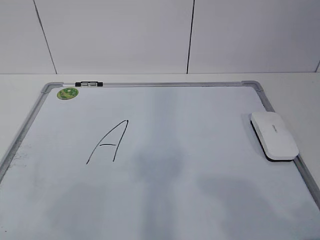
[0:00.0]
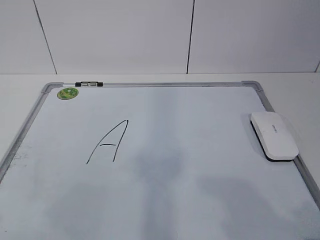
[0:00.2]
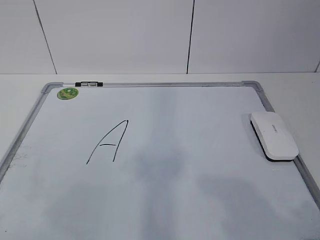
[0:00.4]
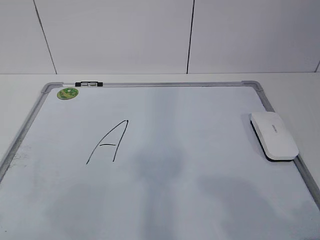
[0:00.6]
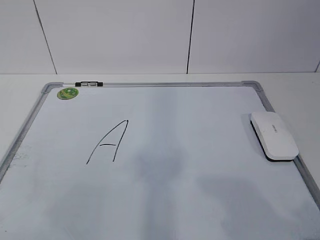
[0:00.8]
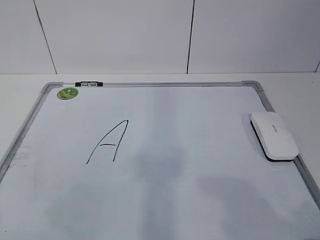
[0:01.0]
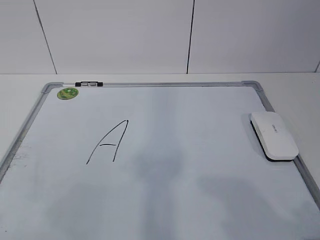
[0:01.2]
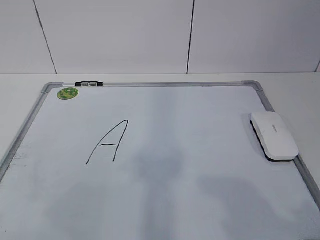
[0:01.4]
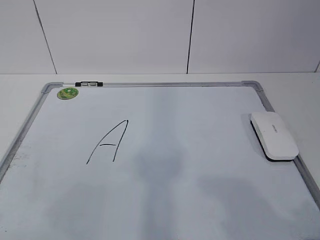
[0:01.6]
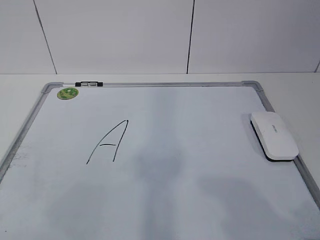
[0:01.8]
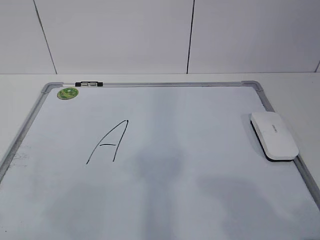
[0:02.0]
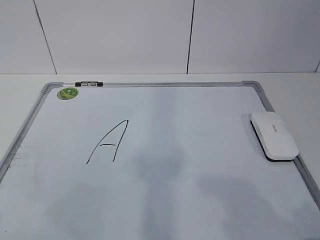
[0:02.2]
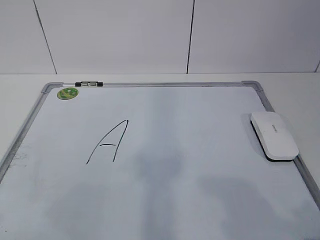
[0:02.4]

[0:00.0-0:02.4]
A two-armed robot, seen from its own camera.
Task of the whole recording: pick up the eraser on the blackboard and erase the letter "a".
0:00.0 to 0:02.4: Both grippers stay put.

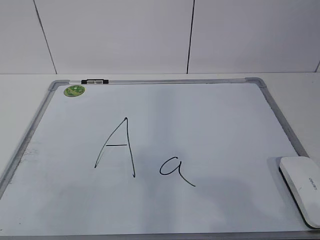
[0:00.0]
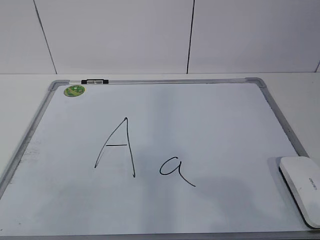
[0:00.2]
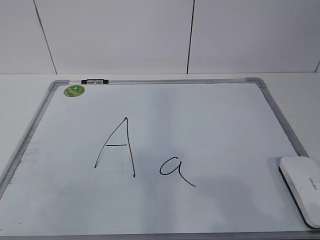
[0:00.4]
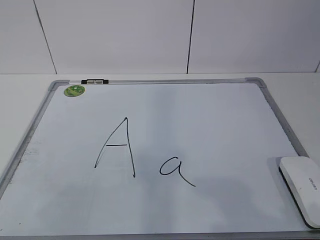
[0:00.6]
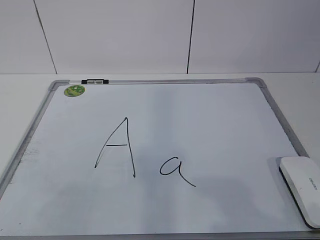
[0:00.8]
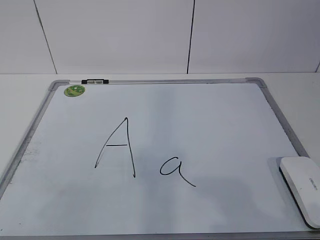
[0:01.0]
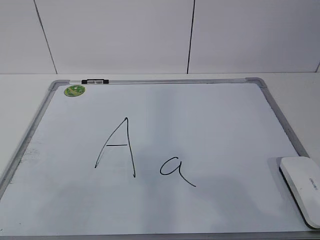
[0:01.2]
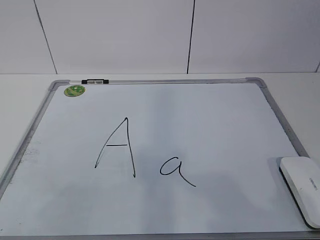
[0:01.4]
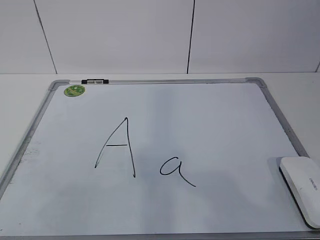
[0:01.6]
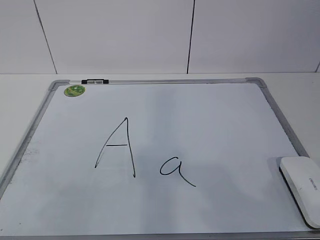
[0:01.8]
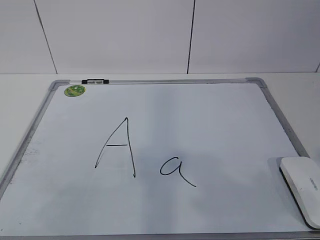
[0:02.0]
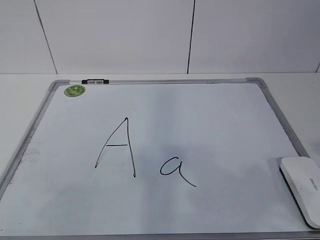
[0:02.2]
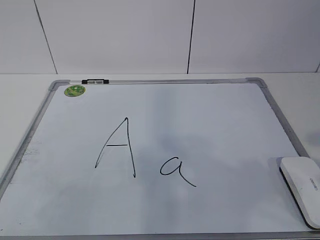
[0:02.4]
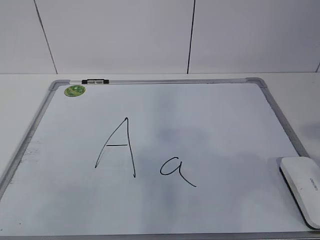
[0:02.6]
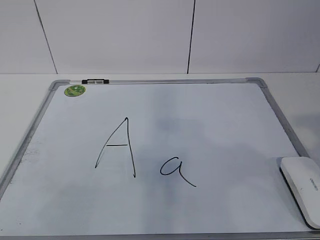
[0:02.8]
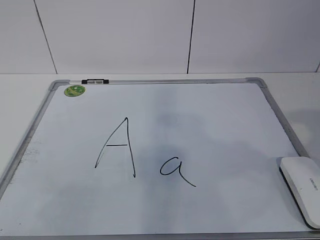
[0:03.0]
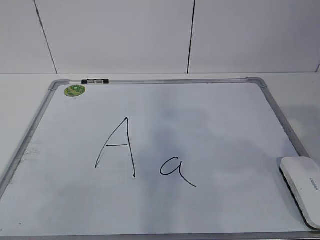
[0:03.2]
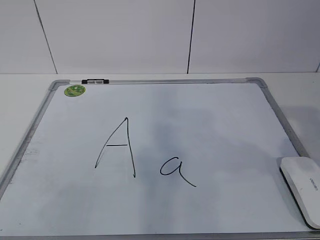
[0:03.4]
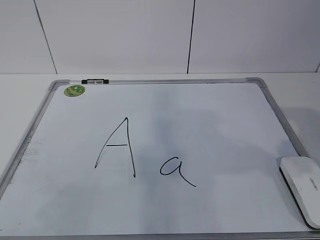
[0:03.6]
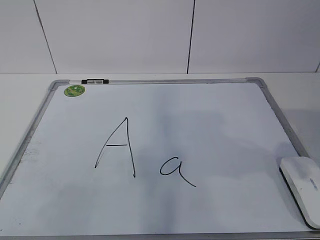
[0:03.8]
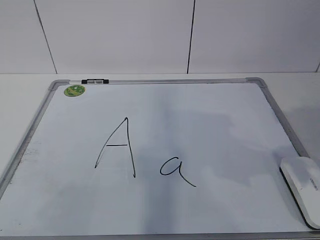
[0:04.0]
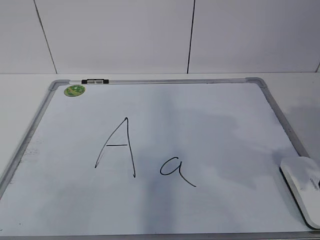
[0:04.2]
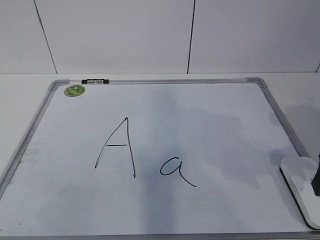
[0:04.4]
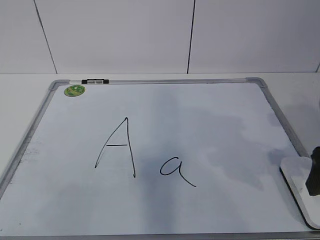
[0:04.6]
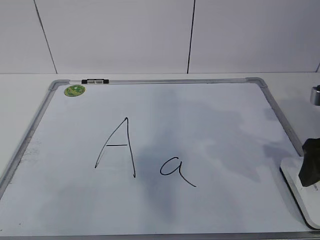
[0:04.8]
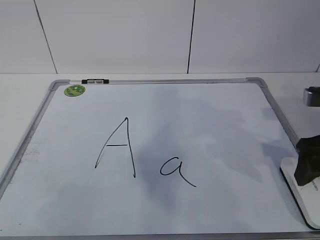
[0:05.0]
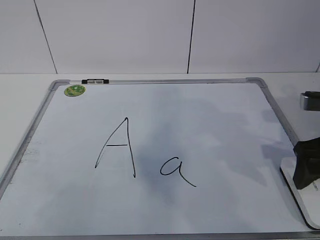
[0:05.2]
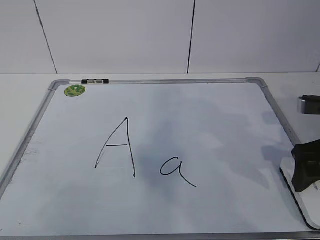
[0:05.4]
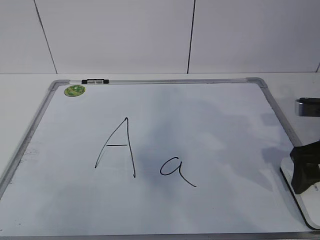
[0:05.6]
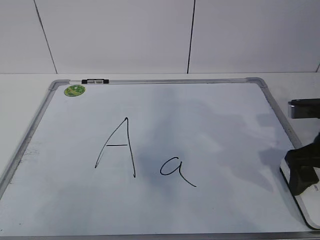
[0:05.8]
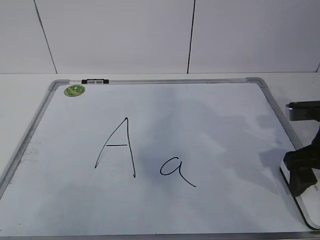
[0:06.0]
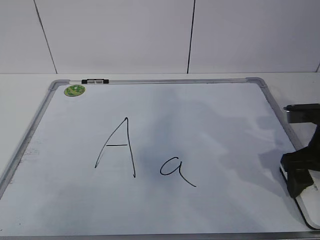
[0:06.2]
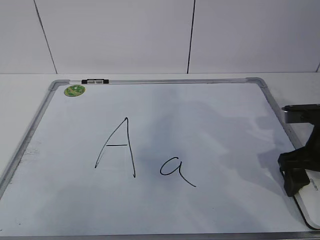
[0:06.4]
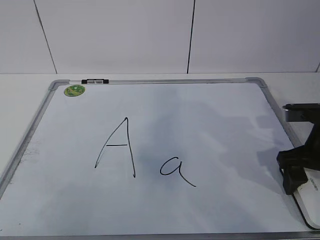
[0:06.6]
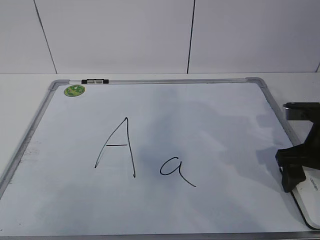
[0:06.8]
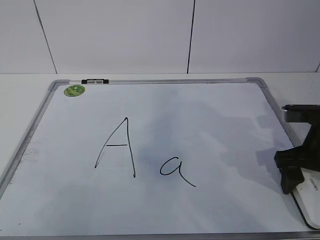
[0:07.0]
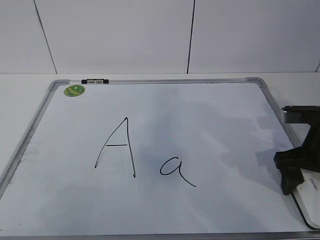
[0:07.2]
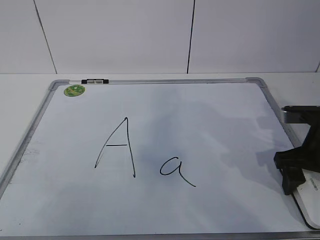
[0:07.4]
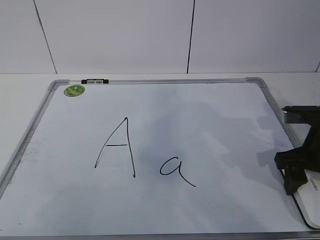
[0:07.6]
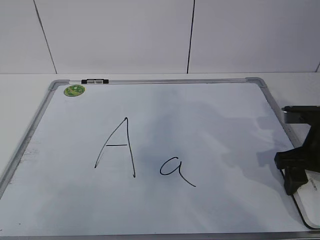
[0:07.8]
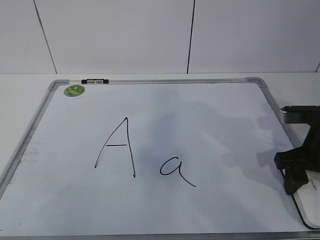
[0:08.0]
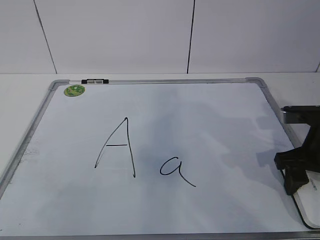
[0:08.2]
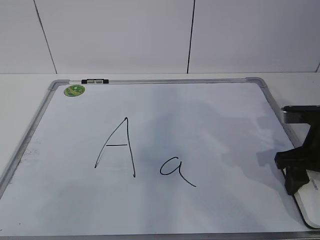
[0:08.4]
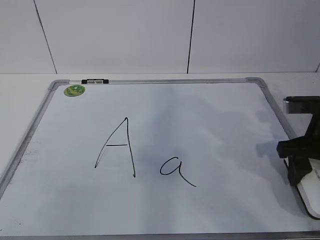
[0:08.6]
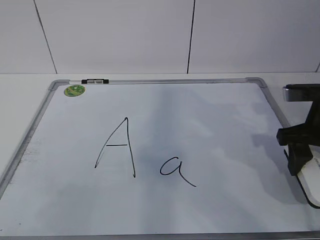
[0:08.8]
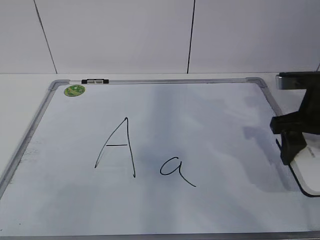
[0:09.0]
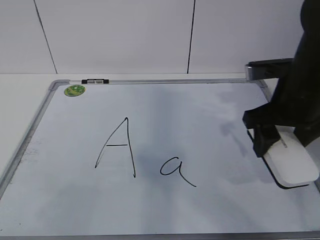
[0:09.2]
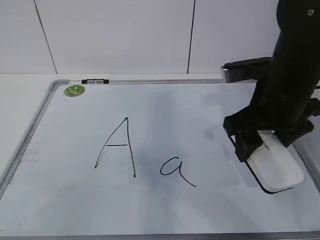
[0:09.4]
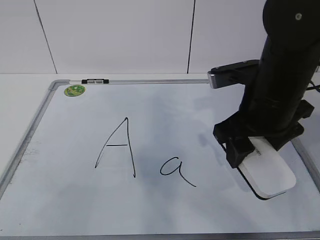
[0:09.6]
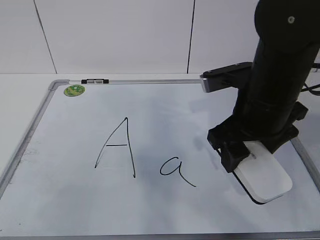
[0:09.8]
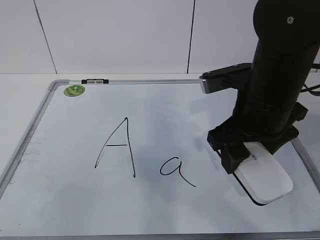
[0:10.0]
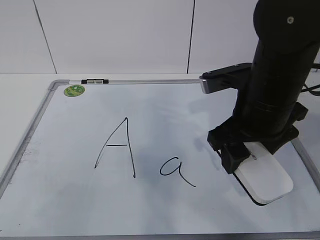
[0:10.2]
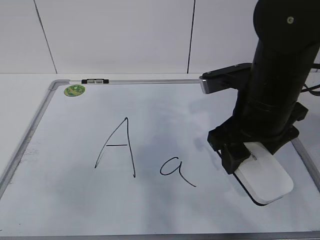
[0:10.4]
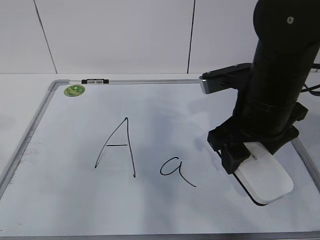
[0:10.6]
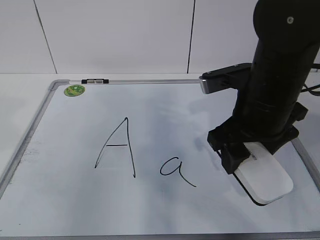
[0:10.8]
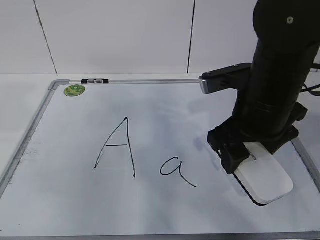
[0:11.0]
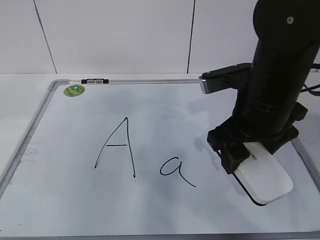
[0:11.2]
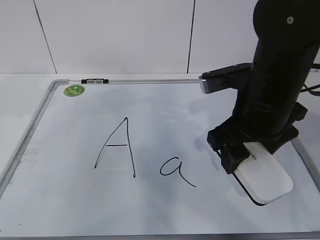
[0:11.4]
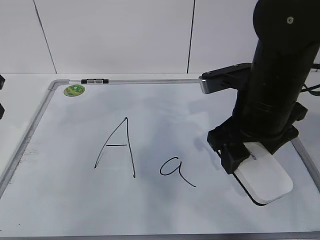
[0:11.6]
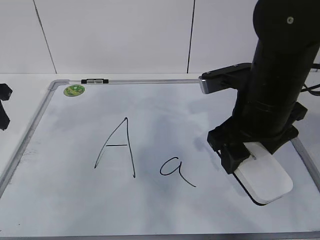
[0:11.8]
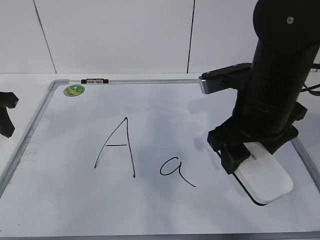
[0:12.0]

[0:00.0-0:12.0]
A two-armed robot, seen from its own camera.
Task of the whole recording: pick up the eraser on the blackboard and erase the letter "a".
Step, 0:00.0 to 0:06.4: Grab the eraser with your right hand.
0:03.0 to 0:04.4: The right gripper is displaced forward and downward by approximately 15 cm.
0:04.4 to 0:06.0: The right gripper shifts some 5 cm forward.
0:06.0 to 0:07.6: The right gripper closes up.
0:07.6 to 0:09.0: The right gripper shifts some 5 cm upward.
0:09.0 to 0:10.4: The right gripper travels to the left by some 10 cm.
0:10.4 to 0:12.0: The left gripper travels forward by roughly 30 cm.

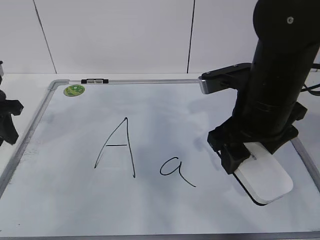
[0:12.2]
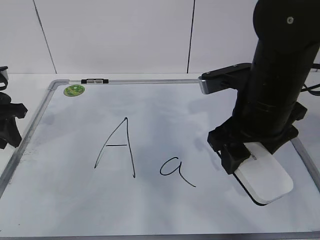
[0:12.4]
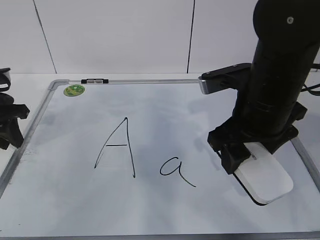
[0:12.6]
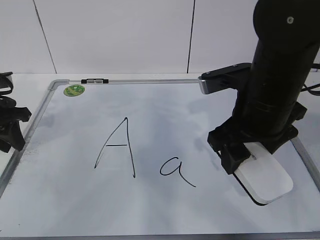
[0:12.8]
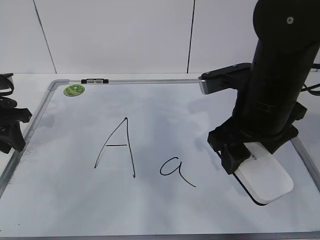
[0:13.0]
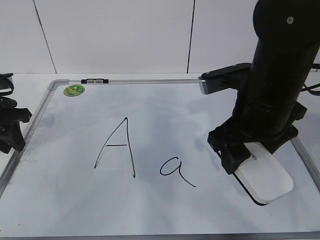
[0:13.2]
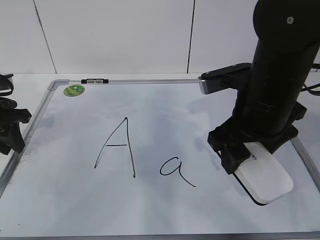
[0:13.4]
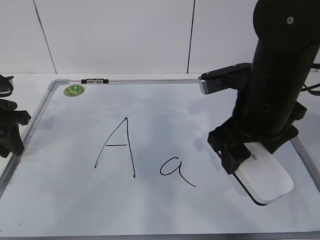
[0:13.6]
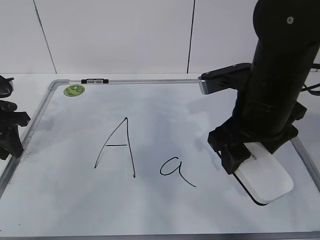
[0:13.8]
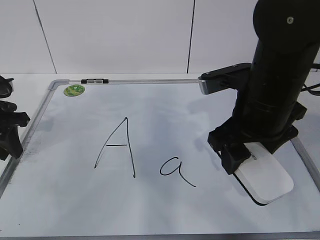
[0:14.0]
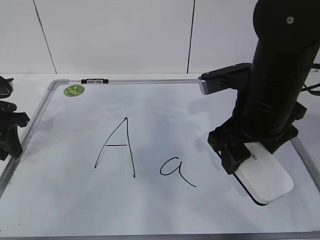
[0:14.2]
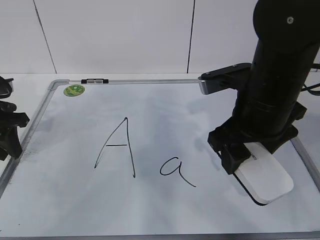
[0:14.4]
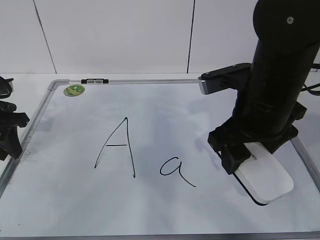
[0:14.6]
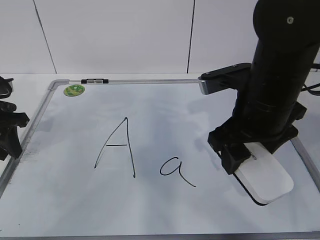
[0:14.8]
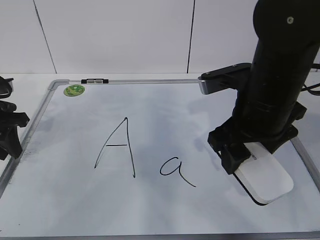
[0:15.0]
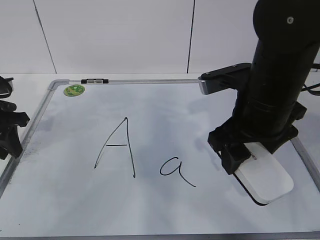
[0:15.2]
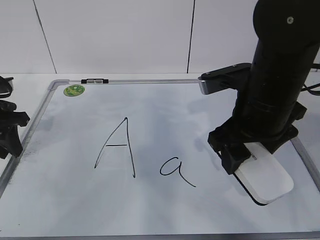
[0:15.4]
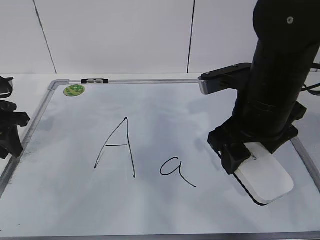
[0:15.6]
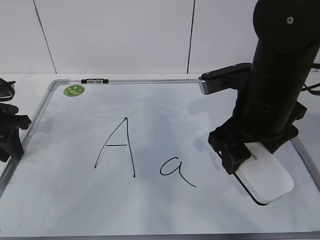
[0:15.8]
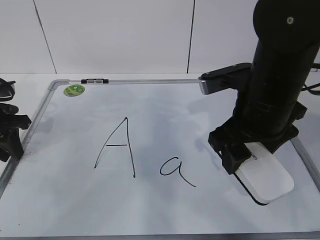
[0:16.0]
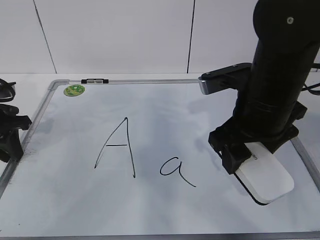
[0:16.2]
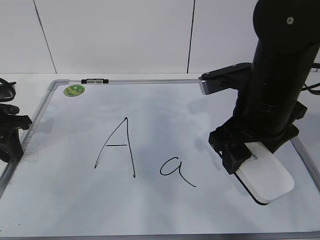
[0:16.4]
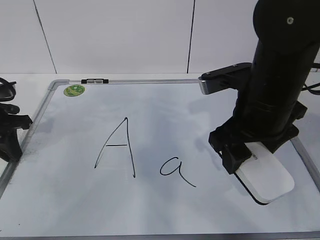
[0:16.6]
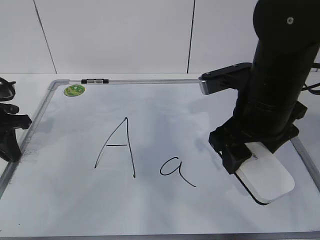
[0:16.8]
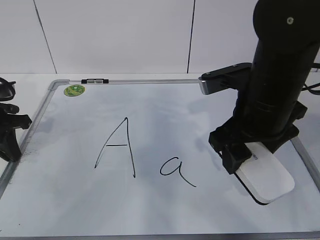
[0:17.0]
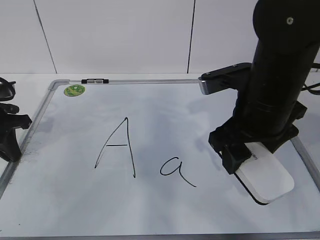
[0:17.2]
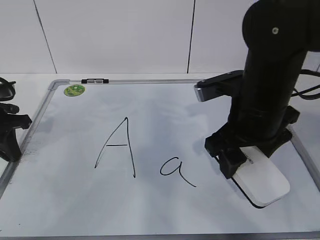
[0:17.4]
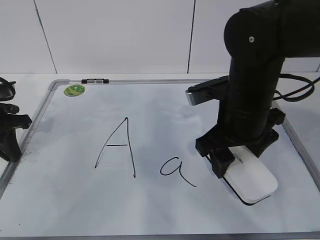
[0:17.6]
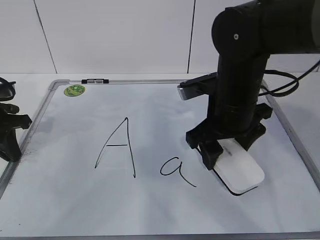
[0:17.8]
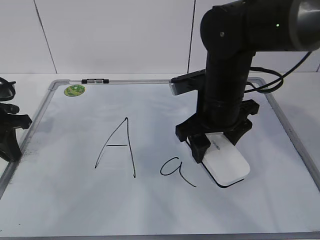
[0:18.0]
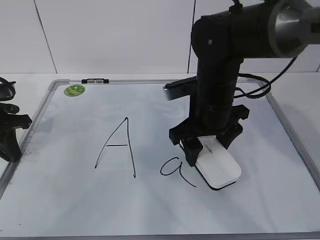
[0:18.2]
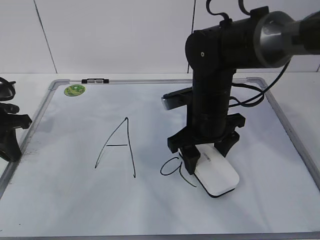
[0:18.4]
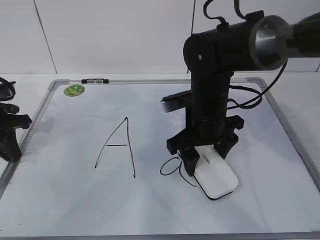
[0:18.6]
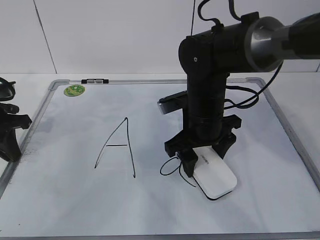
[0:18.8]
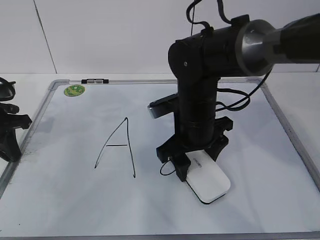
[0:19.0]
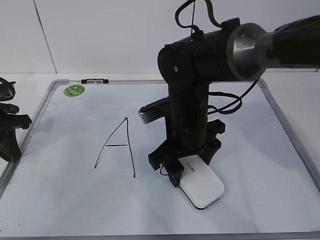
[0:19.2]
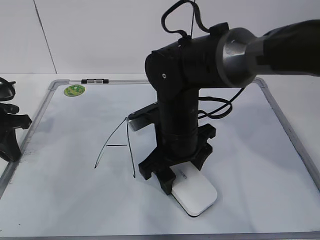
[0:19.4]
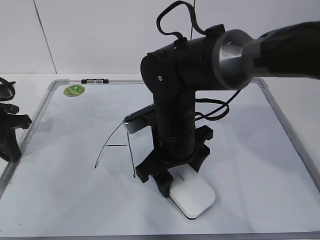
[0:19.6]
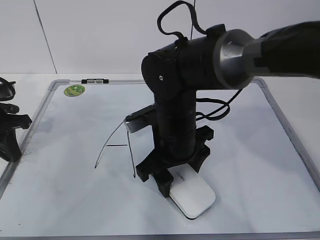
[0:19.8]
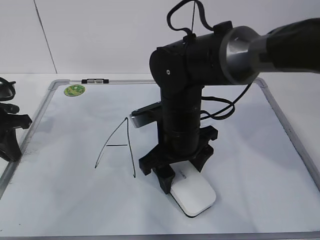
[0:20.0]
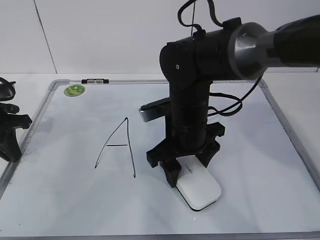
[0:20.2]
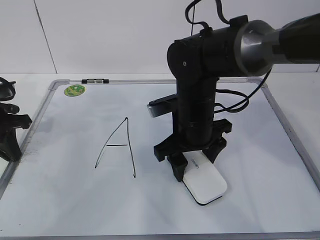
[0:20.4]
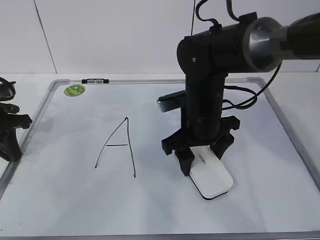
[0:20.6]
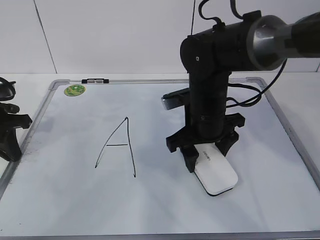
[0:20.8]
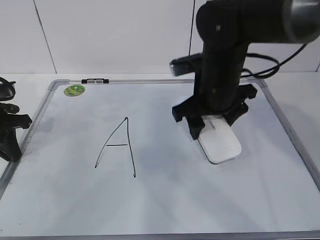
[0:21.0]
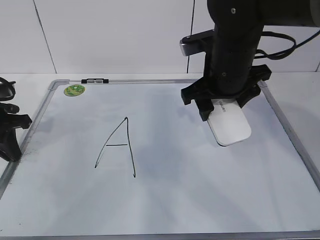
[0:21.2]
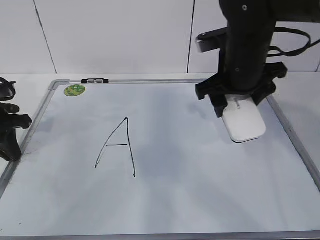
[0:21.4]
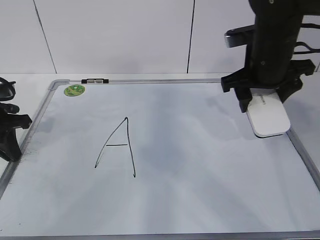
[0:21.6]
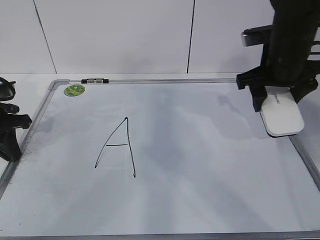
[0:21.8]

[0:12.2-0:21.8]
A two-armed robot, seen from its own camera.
Task of the whole recording: pick up the eraser on the blackboard and erase the letter "a".
Step, 0:17.4 to 0:20.4: Put down the eraser with your right hand.
0:12.2 to 0:13.8: There are only small adjustments of the grippers.
0:13.8 to 0:15.4: The two grippers keep their place.
0:15.4 to 0:17.0: The left gripper closes its fingers.
0:17.0 to 0:18.6: The right gripper is displaced downward and forward by about 10 cm.
0:20.2 to 0:21.8: The right gripper goes about 20 cm to the right and upward.
